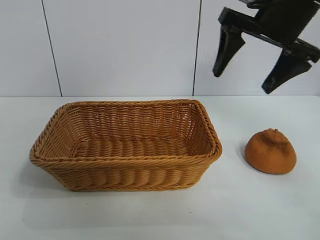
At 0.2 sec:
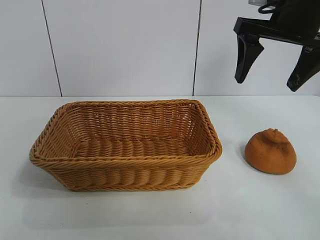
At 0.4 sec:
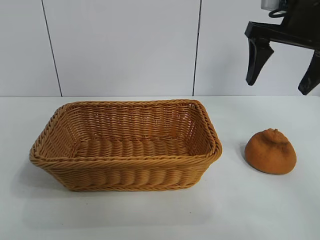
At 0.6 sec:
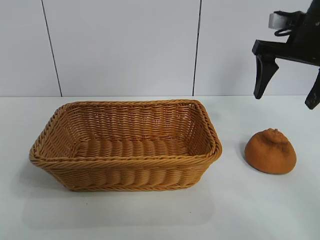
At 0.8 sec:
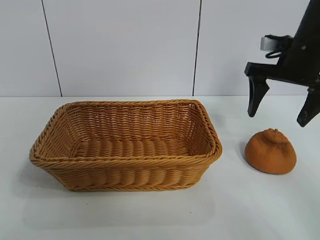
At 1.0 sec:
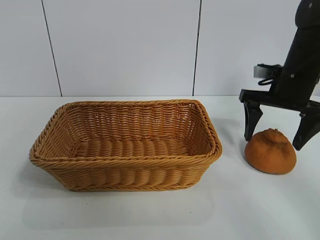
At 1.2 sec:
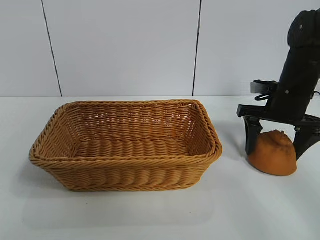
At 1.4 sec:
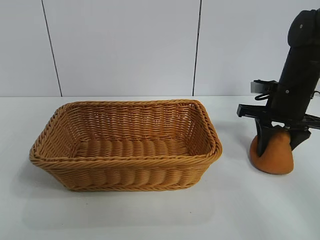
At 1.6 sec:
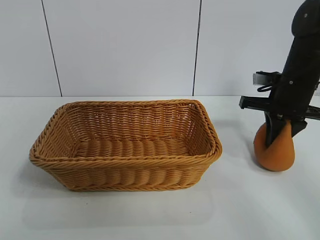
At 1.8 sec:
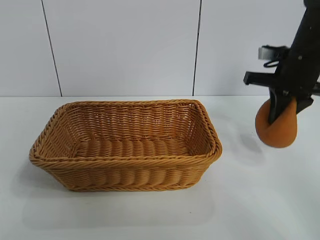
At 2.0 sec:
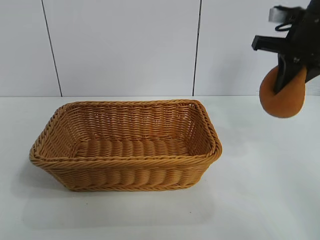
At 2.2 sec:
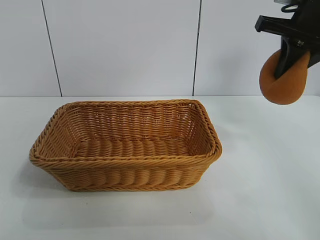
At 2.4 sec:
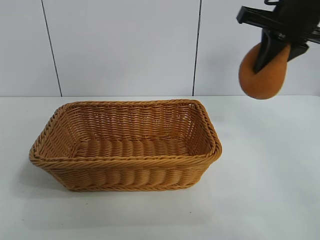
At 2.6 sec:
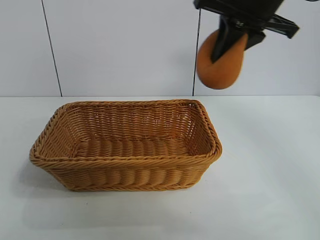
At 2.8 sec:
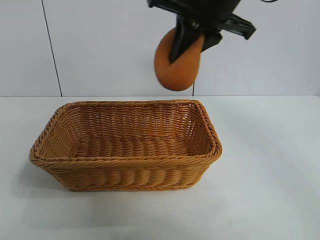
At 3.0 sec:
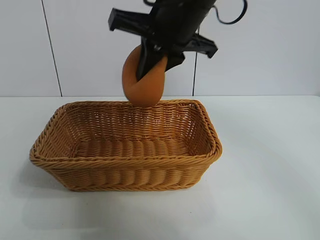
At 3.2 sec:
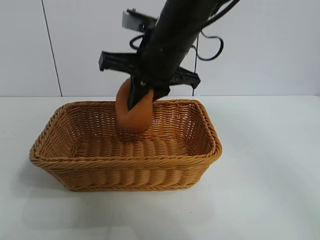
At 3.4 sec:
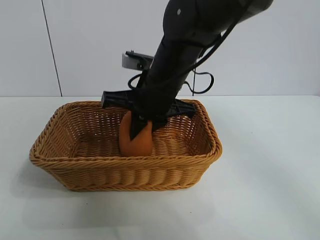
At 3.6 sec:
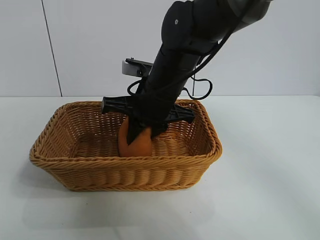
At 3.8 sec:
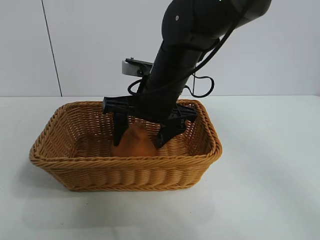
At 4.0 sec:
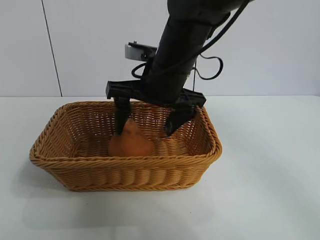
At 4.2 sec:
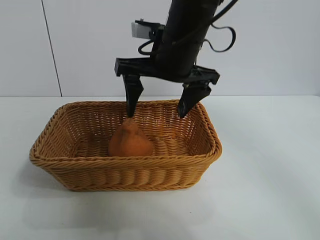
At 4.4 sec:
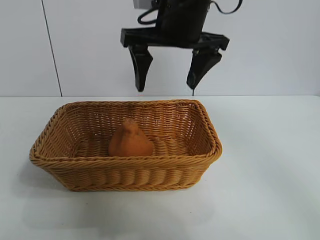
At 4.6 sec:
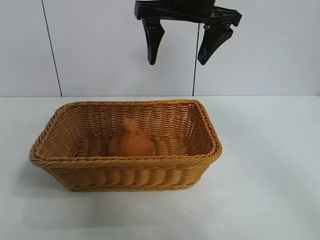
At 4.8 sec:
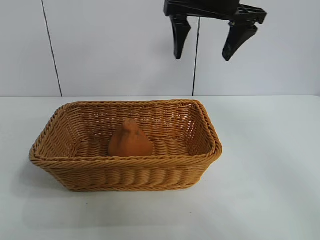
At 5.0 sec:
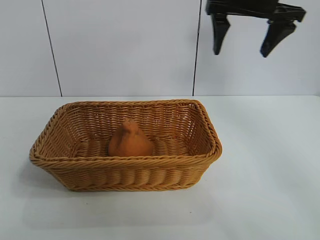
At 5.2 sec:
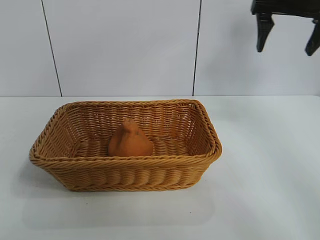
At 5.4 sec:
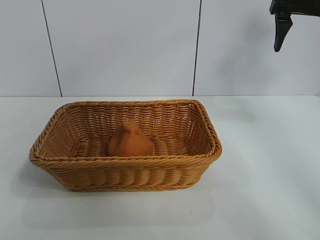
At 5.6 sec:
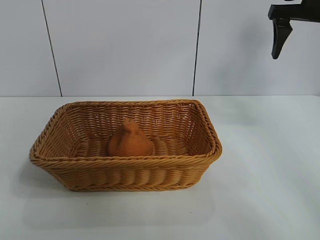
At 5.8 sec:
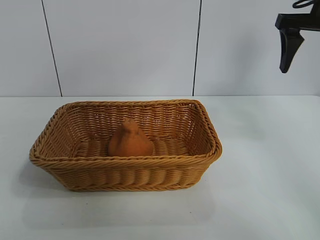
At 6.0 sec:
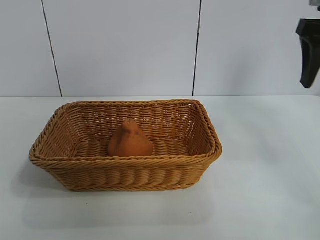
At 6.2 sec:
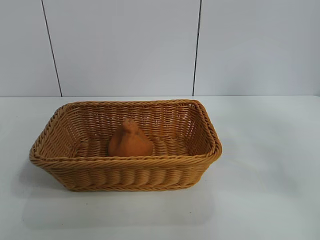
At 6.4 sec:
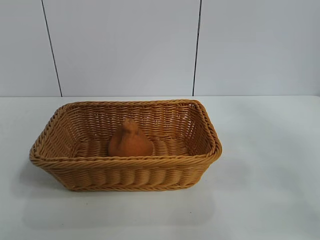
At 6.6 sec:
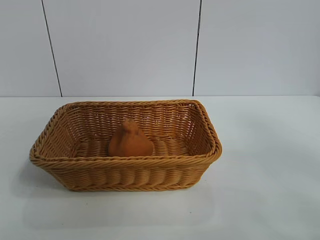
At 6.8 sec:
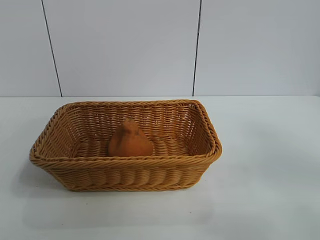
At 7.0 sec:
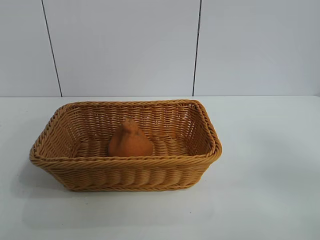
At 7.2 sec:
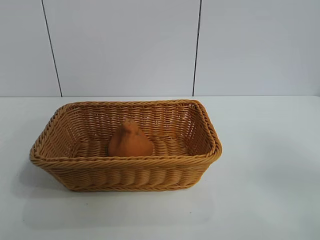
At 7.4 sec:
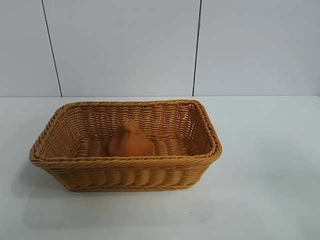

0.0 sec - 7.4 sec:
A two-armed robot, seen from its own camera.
Task of the whole recording: pick up the orange and put it into the basket.
Step, 1.8 sec - 4.0 sec: Place the orange in the basket with right gripper.

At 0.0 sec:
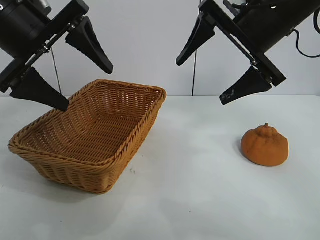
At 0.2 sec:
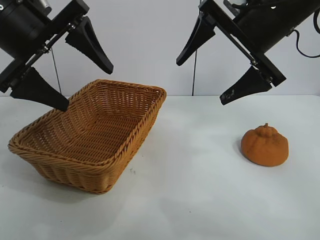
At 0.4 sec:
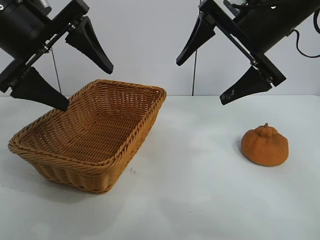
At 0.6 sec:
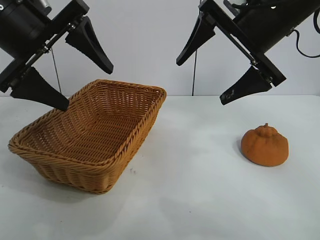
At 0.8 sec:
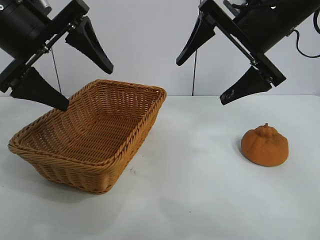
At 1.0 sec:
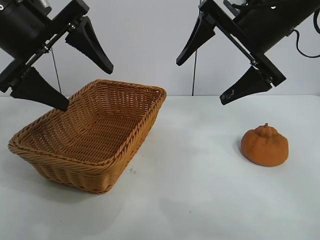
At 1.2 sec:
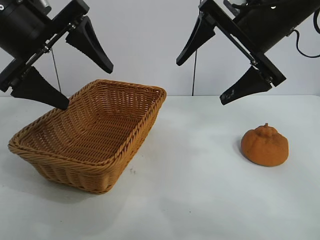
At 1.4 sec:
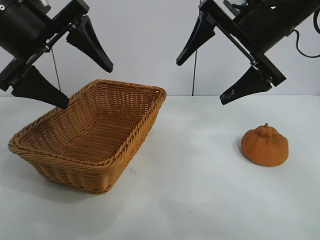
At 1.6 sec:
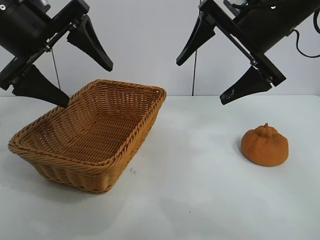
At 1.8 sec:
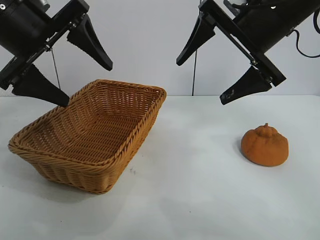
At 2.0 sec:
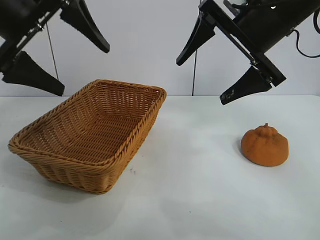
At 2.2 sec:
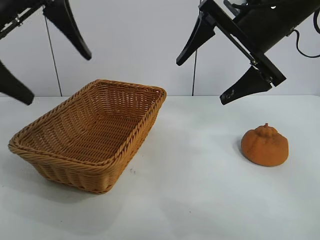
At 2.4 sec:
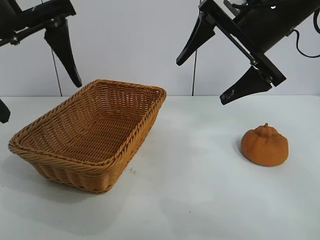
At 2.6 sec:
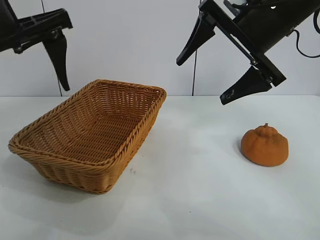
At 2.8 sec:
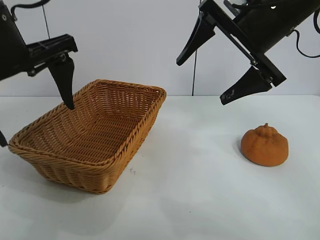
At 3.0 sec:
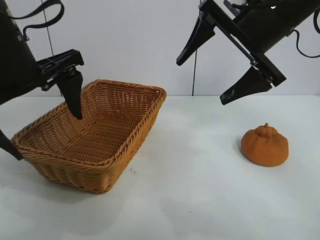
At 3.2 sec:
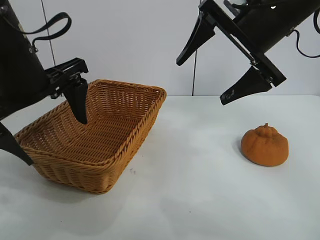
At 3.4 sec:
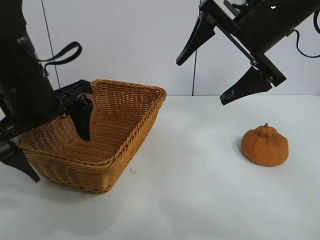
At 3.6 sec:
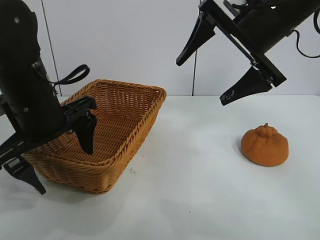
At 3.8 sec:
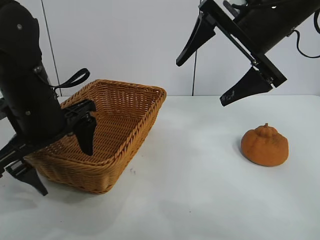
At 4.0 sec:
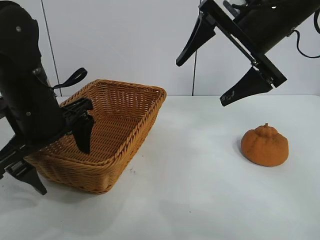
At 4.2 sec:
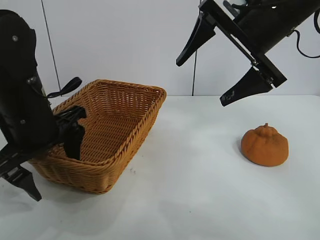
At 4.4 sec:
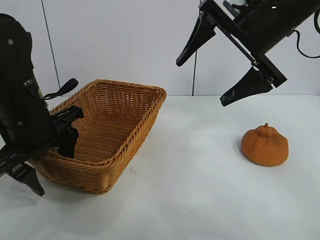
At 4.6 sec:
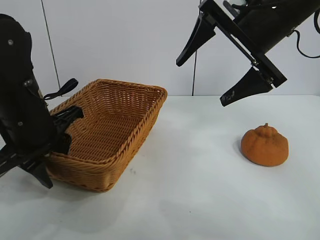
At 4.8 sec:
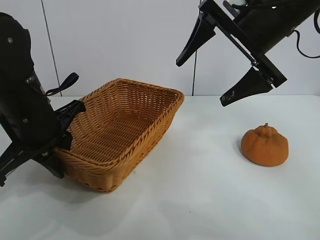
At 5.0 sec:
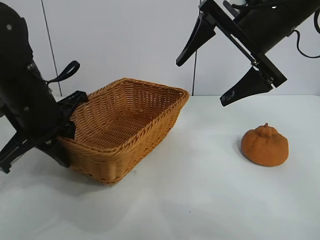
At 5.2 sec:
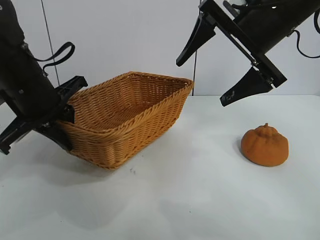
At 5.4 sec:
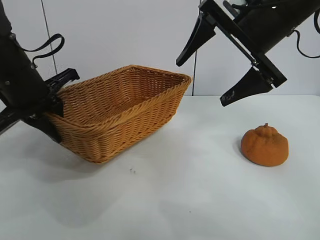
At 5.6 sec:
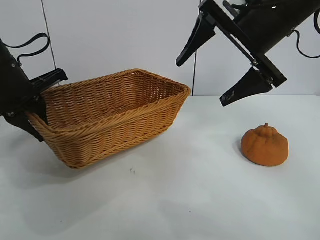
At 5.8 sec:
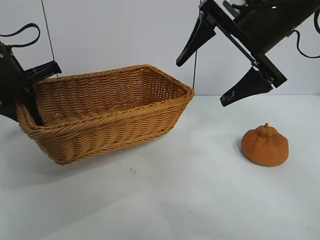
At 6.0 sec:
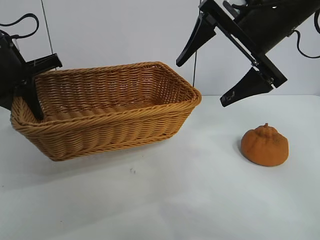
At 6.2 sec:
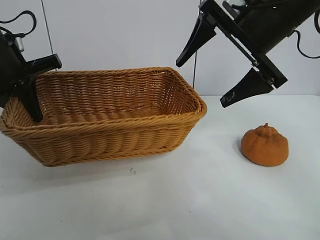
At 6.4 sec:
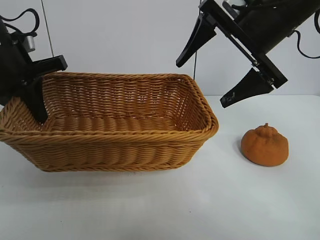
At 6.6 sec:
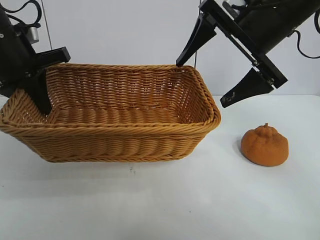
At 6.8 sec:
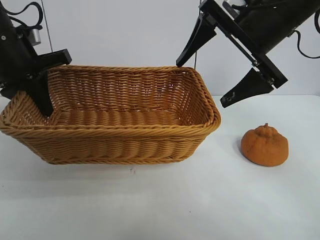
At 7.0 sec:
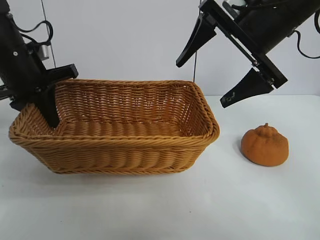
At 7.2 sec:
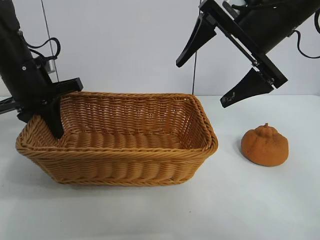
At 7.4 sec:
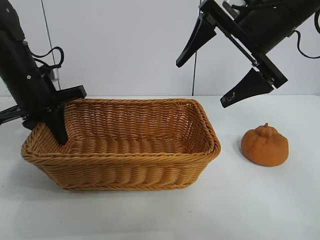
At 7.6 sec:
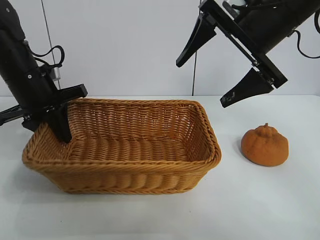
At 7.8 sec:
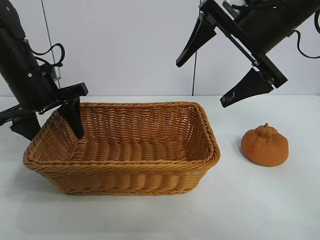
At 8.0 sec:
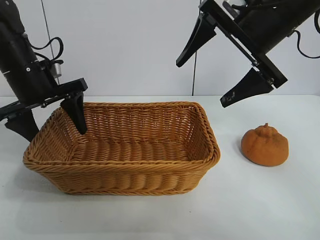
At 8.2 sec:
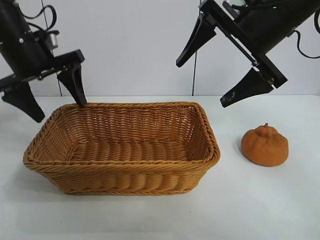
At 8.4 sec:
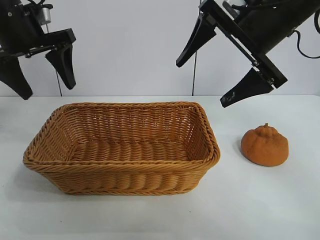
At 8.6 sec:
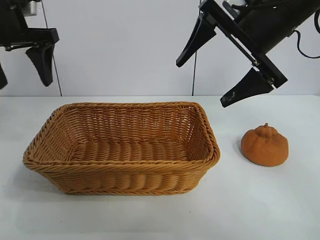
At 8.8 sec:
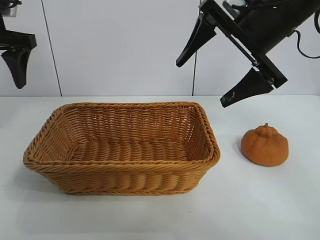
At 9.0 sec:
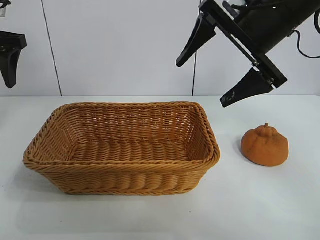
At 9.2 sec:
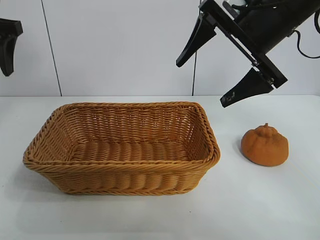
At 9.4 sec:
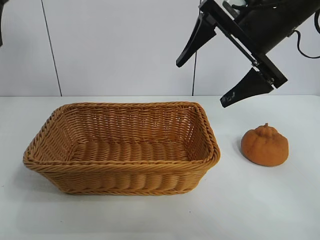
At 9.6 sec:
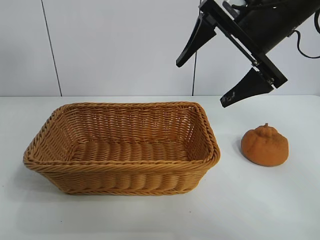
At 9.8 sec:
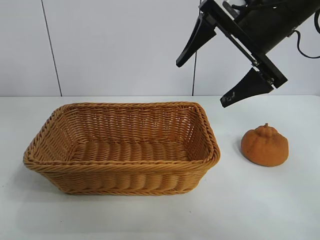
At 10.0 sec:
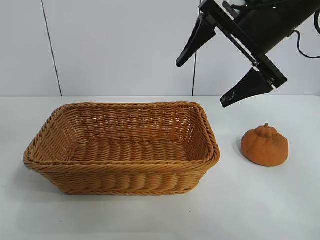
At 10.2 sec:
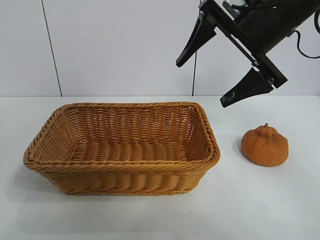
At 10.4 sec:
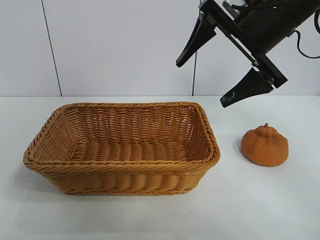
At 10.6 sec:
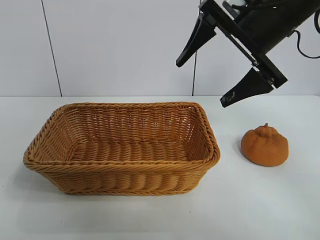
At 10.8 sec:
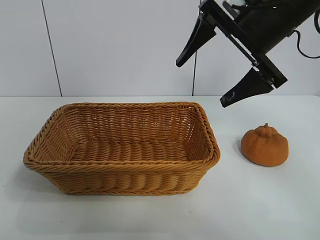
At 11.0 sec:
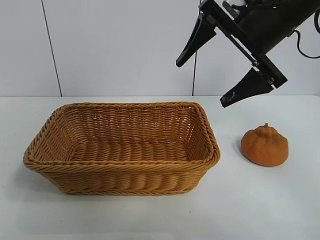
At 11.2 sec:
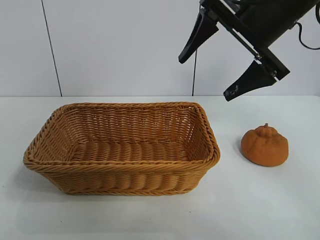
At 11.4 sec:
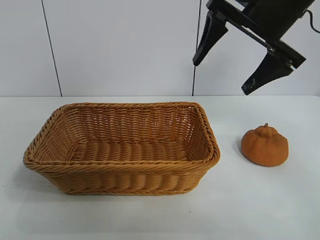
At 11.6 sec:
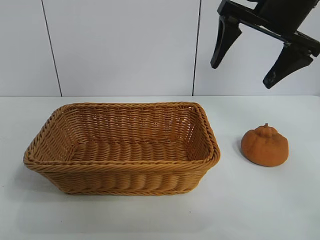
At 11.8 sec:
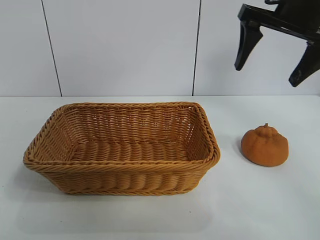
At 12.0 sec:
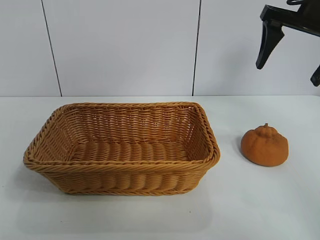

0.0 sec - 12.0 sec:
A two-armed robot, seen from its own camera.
Task of the whole recording: pick up the orange and put it into the basket.
Step, 1.2 sec - 4.6 sec: Grasp the basket with left gripper.
Step, 4.8 sec - 7.8 sec: Place the basket in the center of view with left gripper.

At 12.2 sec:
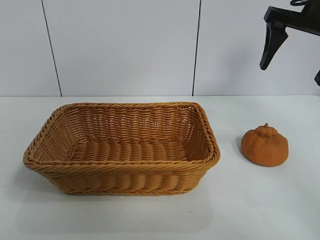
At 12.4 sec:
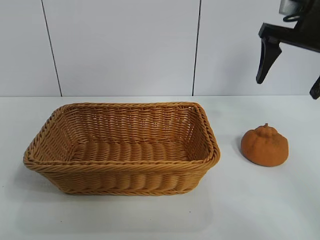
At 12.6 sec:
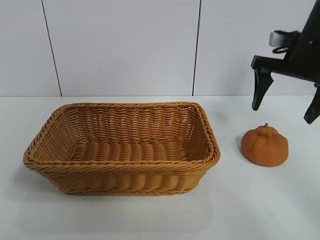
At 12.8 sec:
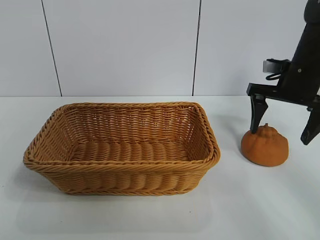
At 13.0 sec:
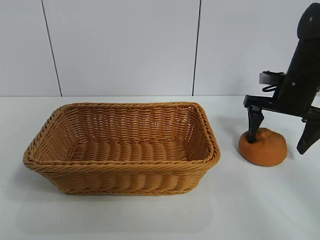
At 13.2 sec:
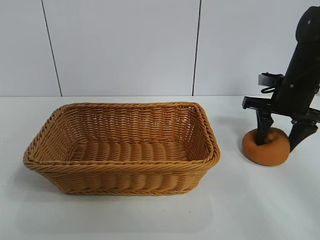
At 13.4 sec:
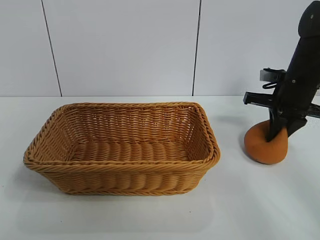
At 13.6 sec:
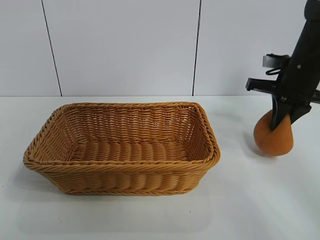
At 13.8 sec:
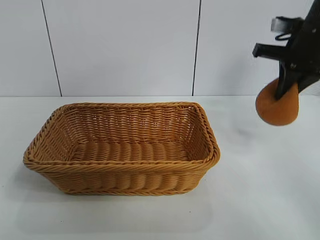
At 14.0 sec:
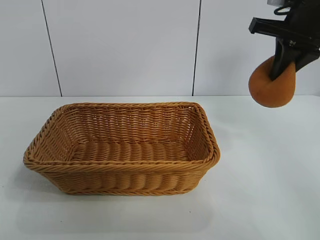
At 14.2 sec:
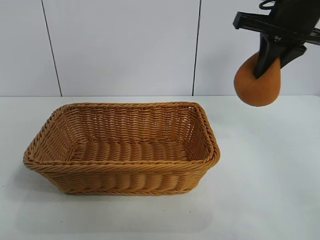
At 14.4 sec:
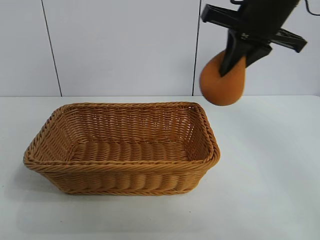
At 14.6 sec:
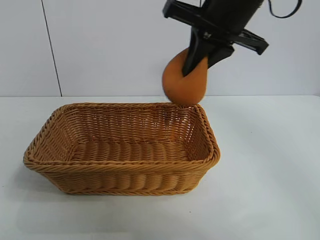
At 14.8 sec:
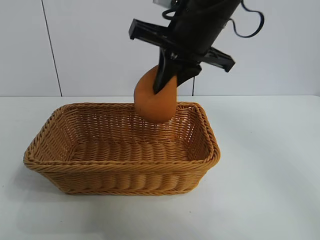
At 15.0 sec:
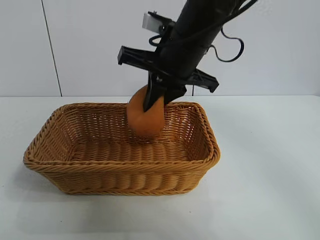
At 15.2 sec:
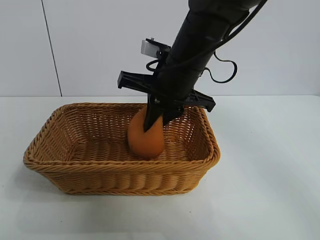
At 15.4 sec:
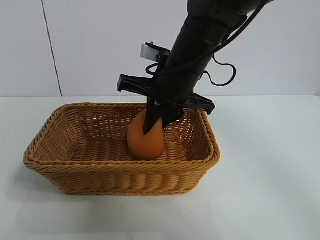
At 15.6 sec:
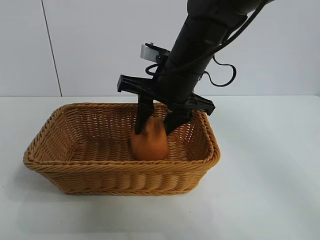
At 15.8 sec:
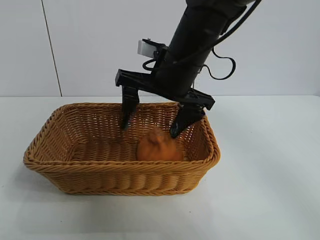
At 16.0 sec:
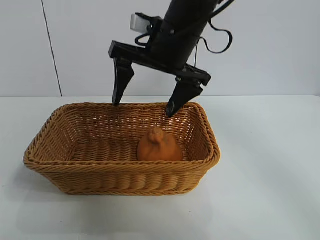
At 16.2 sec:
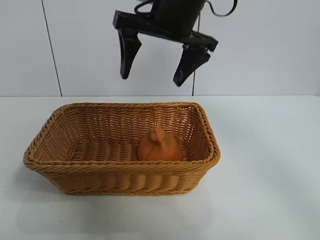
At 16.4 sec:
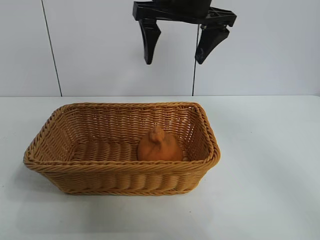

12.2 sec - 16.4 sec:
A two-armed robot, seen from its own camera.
Task of the whole recording: pick up the orange and put it into the basket.
Step, 13.8 sec - 15.6 sec: Place the orange in the basket with right gripper.
